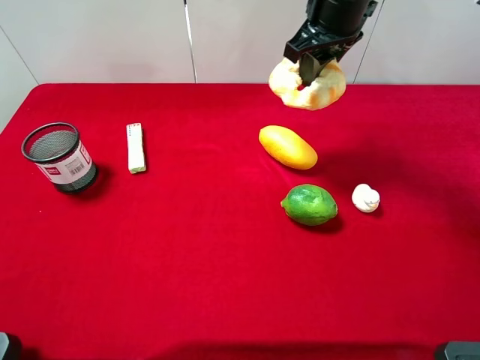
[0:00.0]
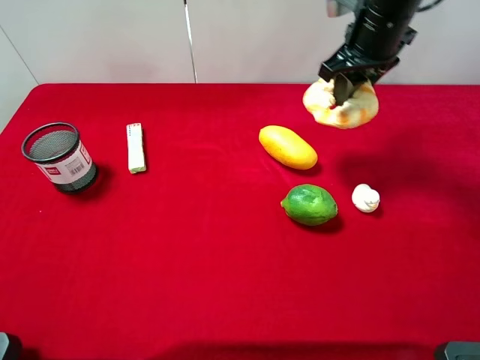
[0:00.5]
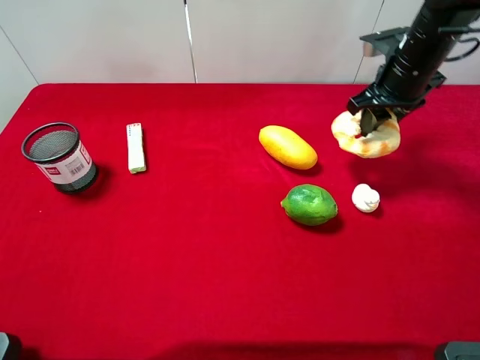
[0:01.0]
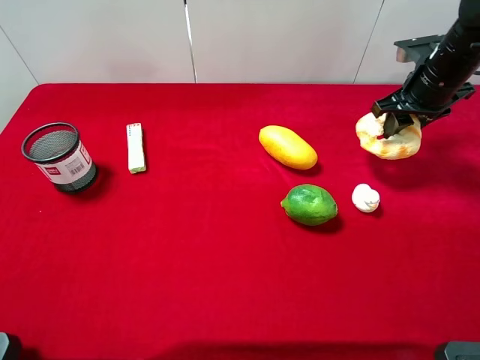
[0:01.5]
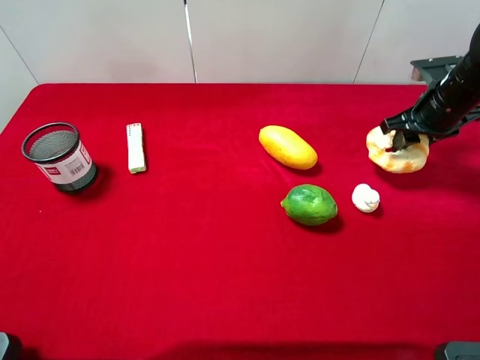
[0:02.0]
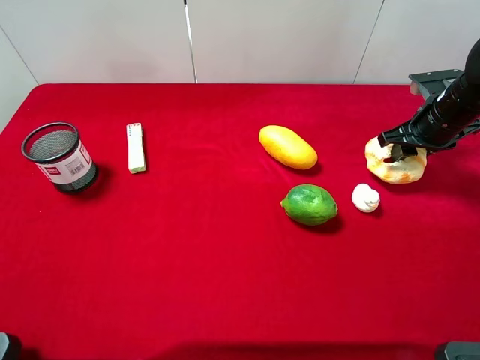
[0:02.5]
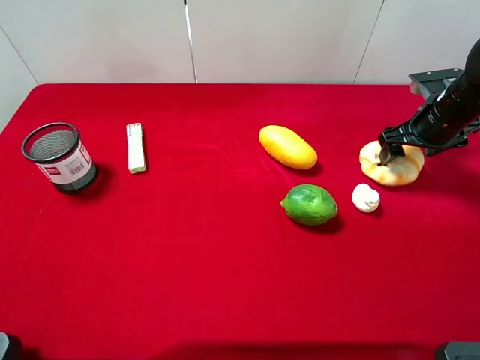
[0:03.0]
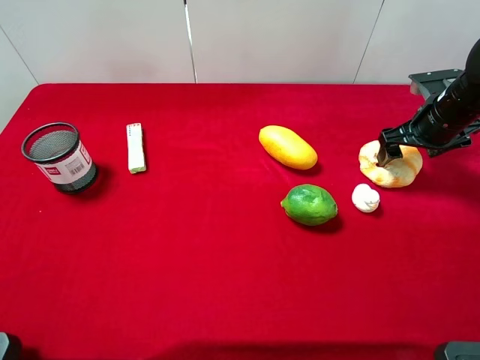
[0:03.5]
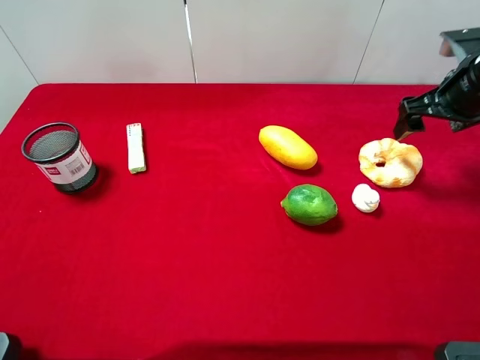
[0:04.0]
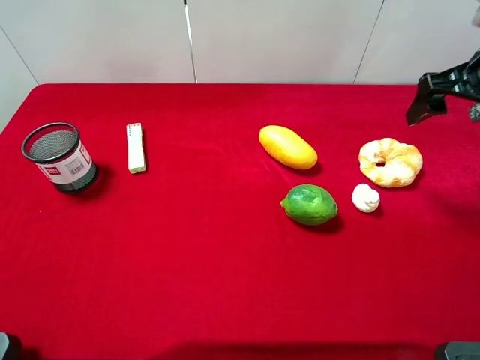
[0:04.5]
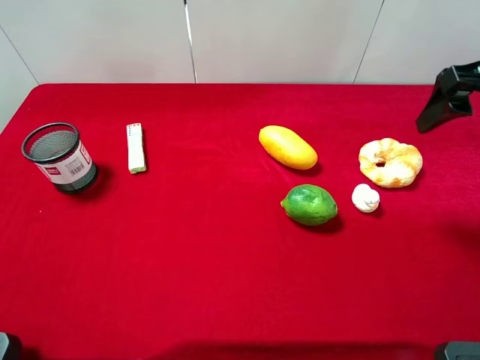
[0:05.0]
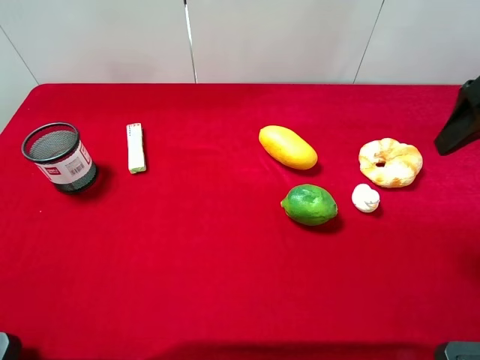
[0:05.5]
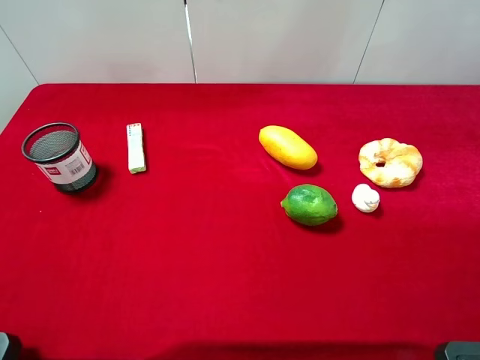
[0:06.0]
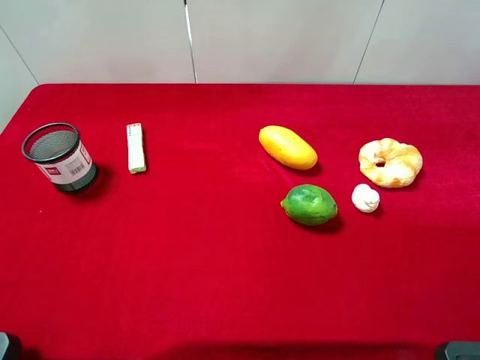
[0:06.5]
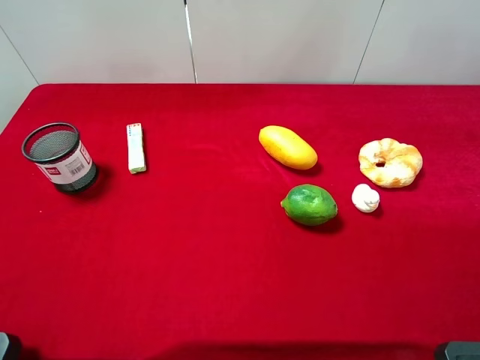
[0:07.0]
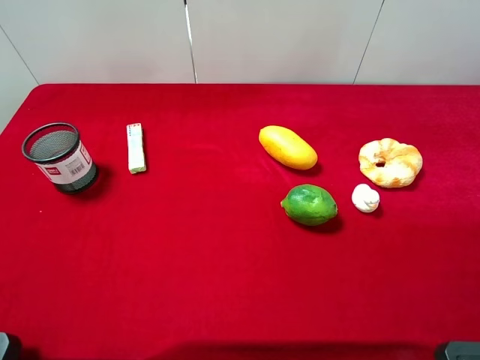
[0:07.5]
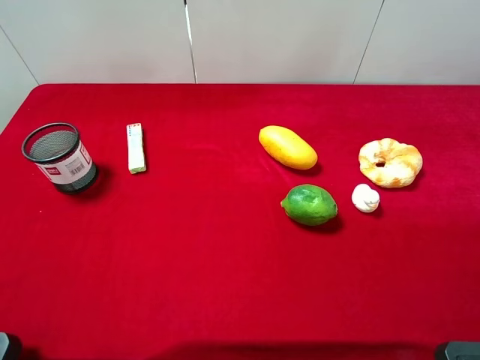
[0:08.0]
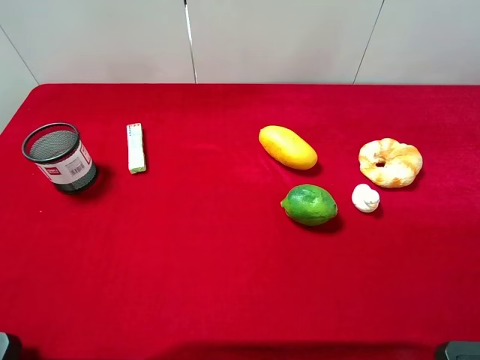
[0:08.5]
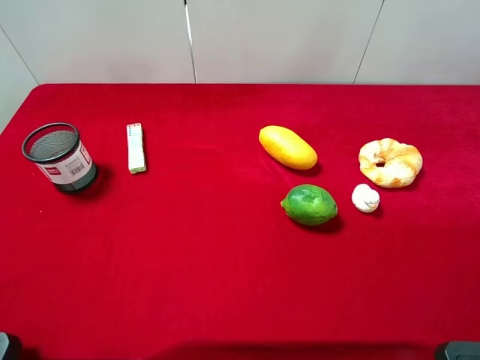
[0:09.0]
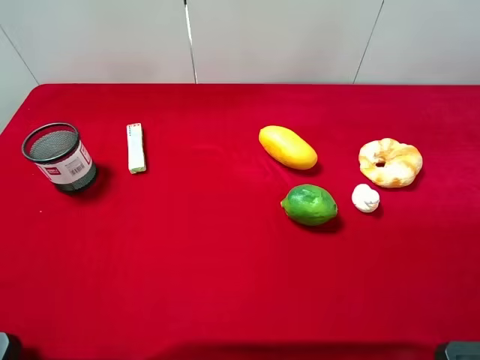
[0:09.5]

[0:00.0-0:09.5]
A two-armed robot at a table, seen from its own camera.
Task of the whole recording: the gripper move the object.
Step, 0:00.0 to 0:04.0: Place the hollow ring bread on the table with the right gripper.
0:00.0 to 0:02.0: The right gripper heads to the right and downward, covering some 25 cm.
0:02.0 to 0:04.0: The right gripper moves upward, approximately 5 cm, and opens up.
0:04.0 to 0:05.5: The right gripper travels backward and upward by approximately 15 cm.
0:05.5 to 0:07.5: The right gripper is displaced backward by roughly 20 cm.
